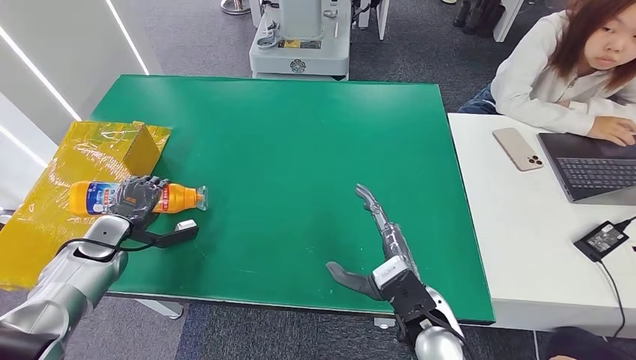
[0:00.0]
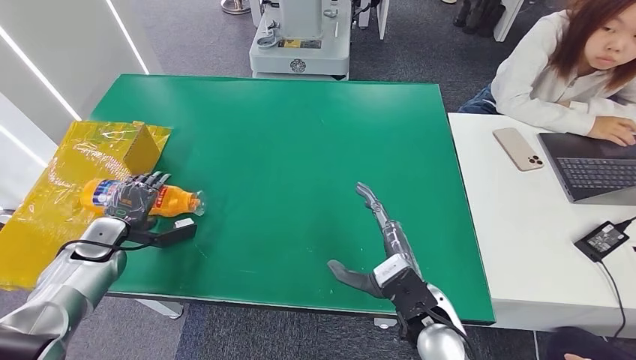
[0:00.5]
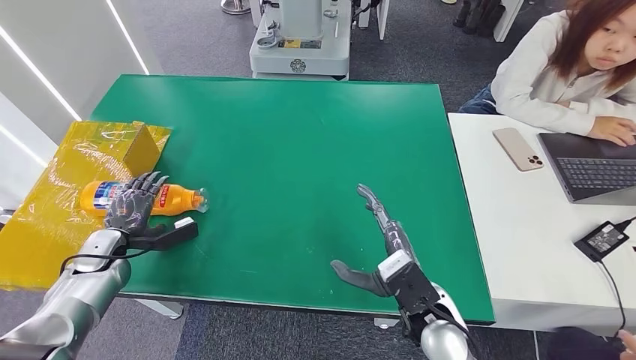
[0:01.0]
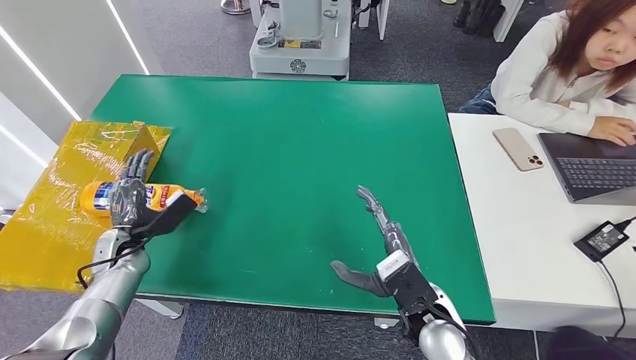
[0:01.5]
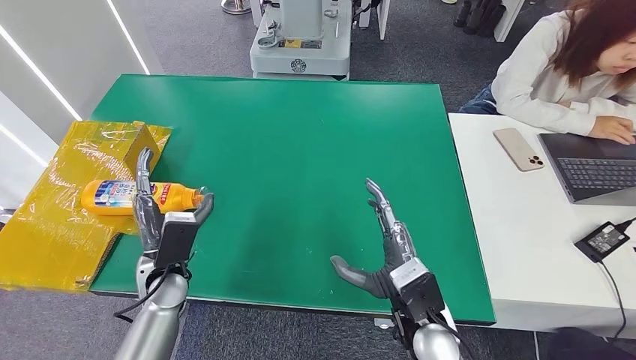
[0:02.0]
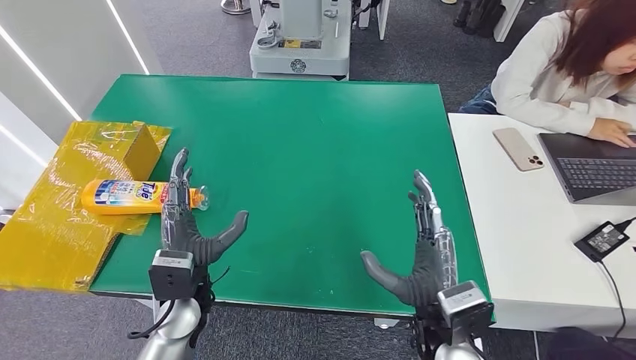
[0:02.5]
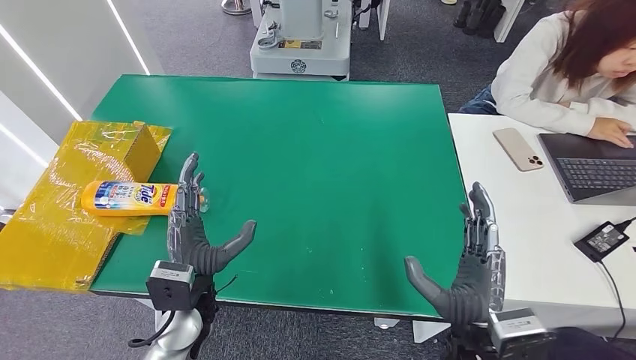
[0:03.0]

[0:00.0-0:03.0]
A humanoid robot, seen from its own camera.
Step, 0:00.0 to 0:03.0: Turn the bottle to the front side.
0:00.0 to 0:01.5: The left hand goes about 5 cm to the right.
0:01.5 to 0:03.0: The left hand moves to the right and backward, roughly 25 cm; the right hand moves backward, some 5 cm.
